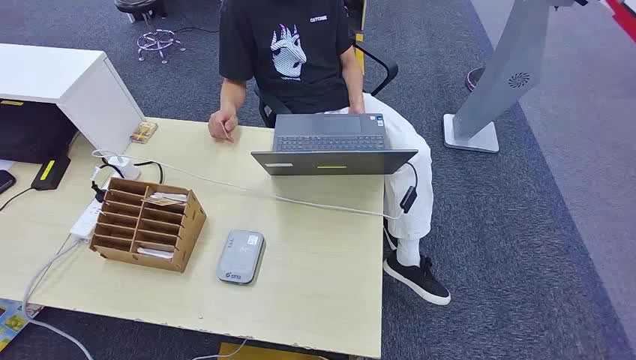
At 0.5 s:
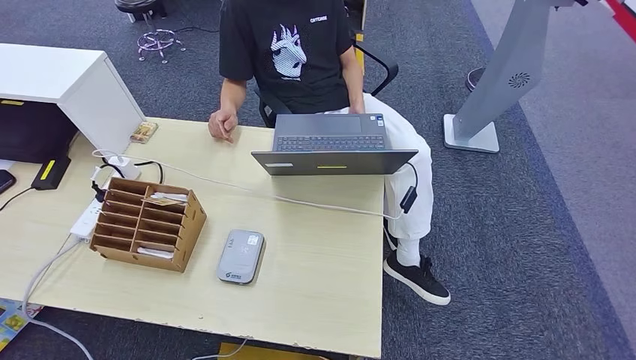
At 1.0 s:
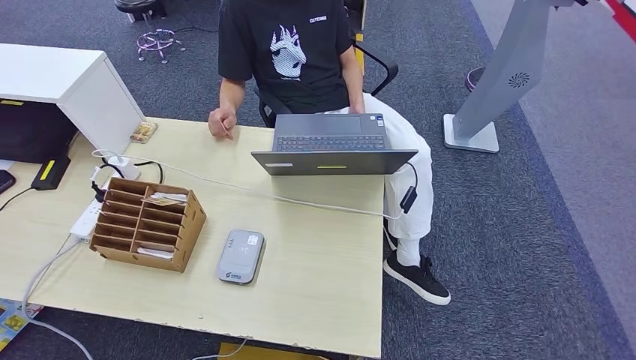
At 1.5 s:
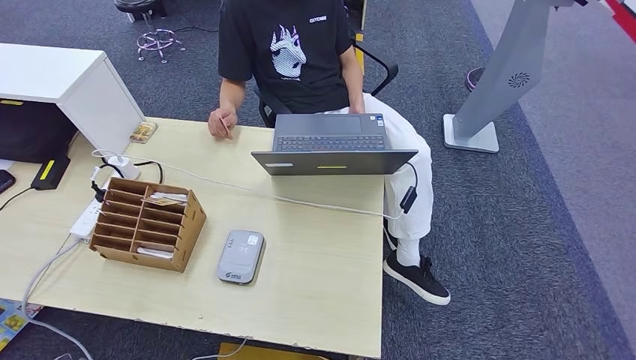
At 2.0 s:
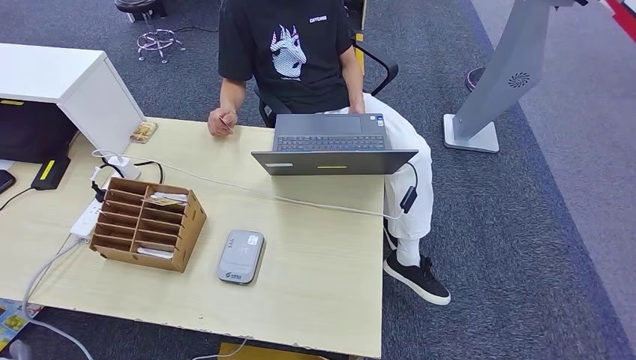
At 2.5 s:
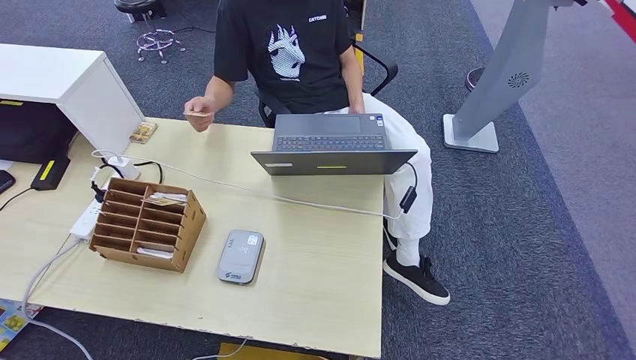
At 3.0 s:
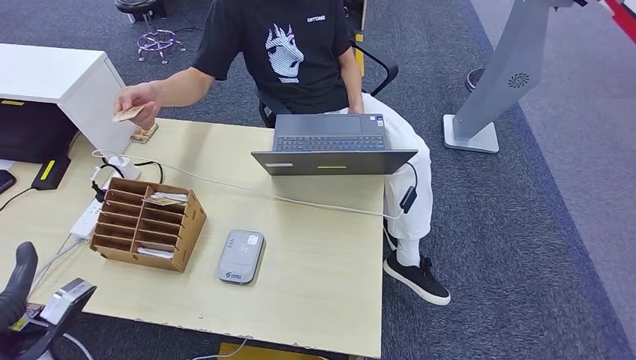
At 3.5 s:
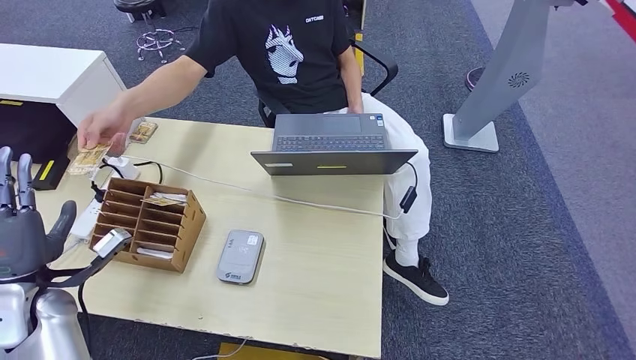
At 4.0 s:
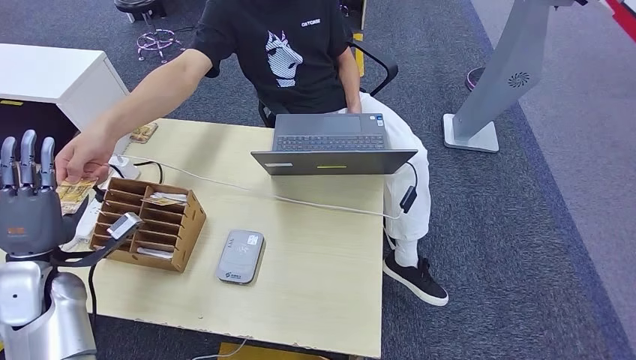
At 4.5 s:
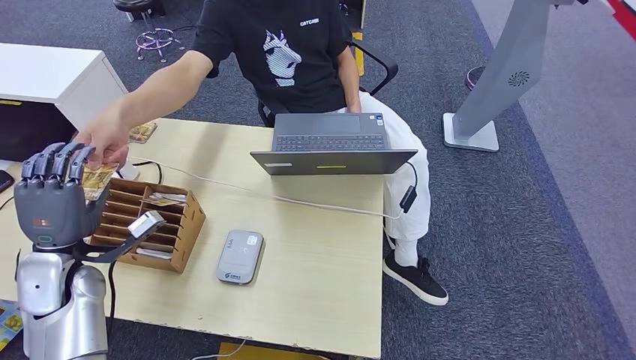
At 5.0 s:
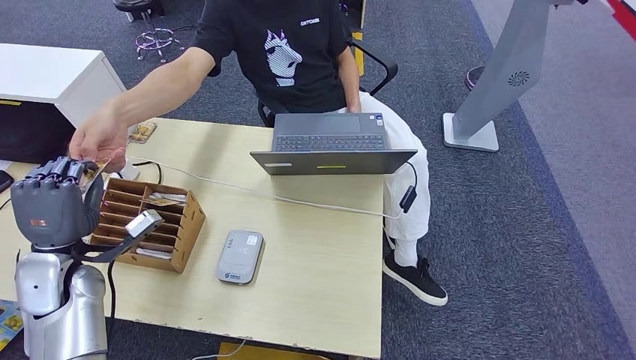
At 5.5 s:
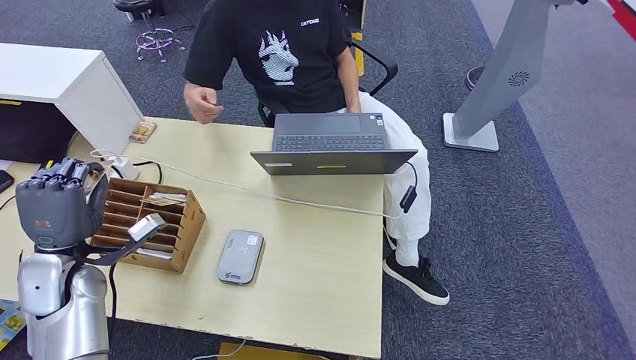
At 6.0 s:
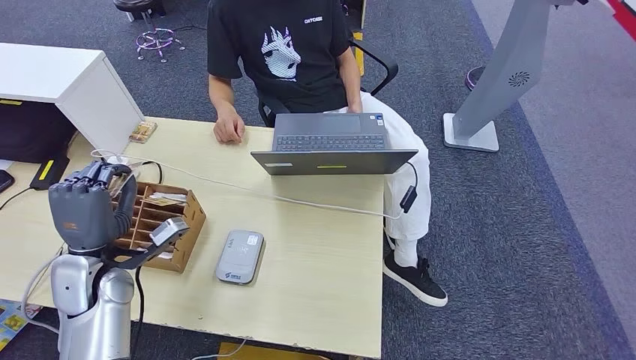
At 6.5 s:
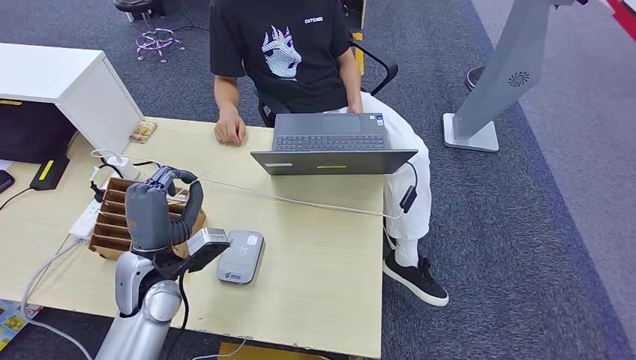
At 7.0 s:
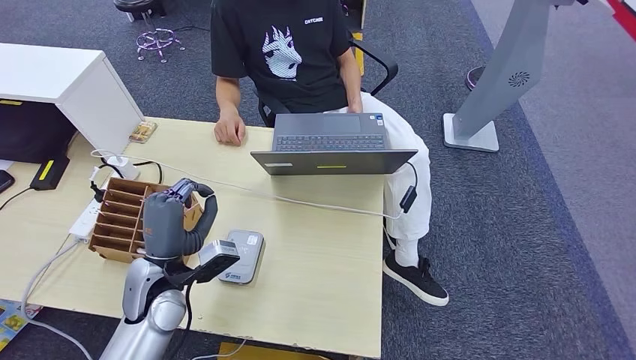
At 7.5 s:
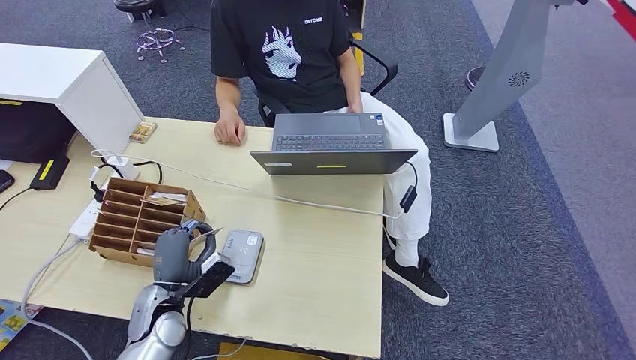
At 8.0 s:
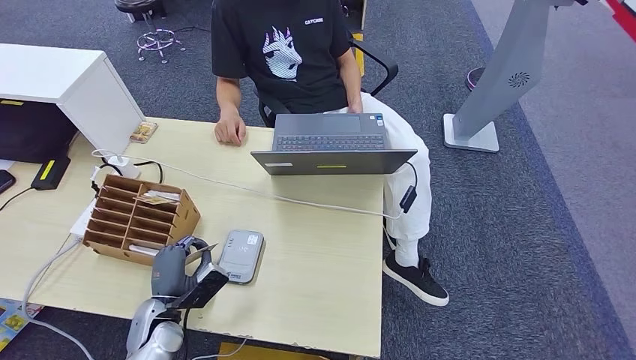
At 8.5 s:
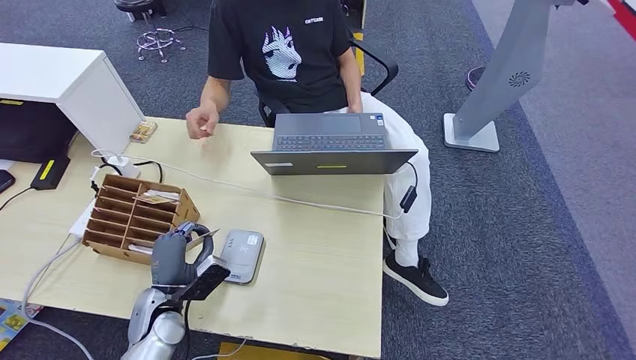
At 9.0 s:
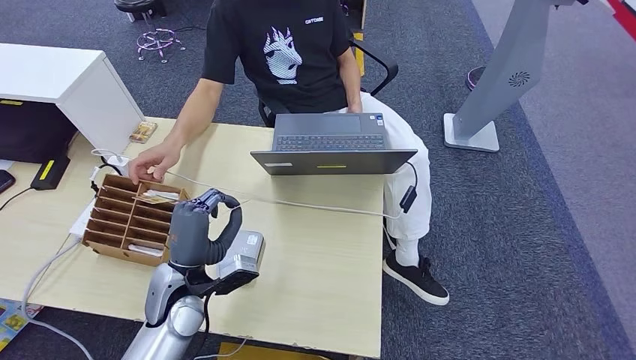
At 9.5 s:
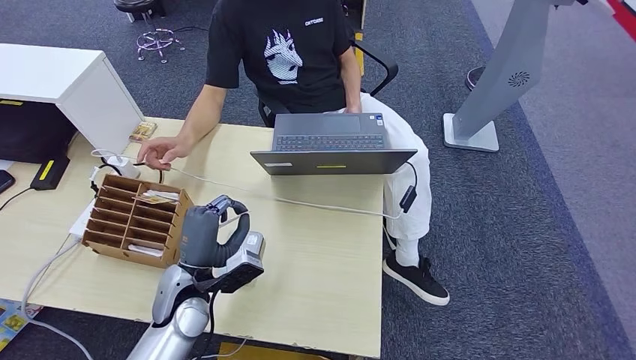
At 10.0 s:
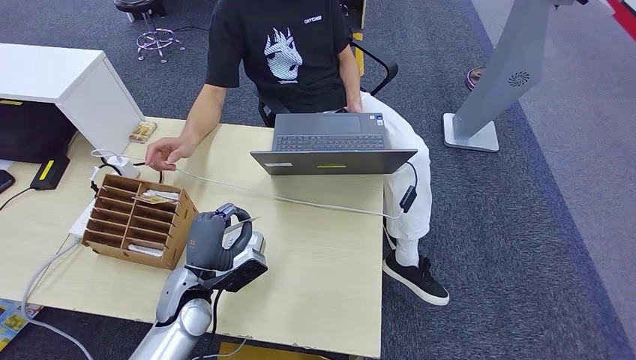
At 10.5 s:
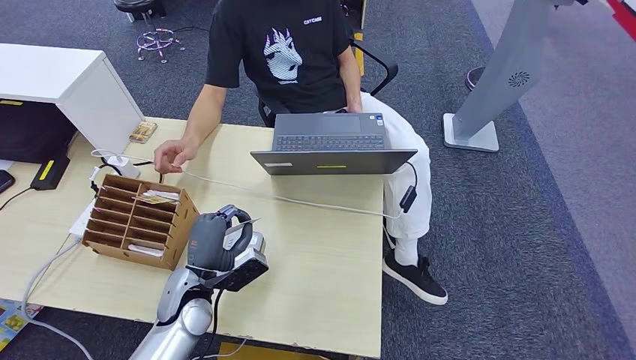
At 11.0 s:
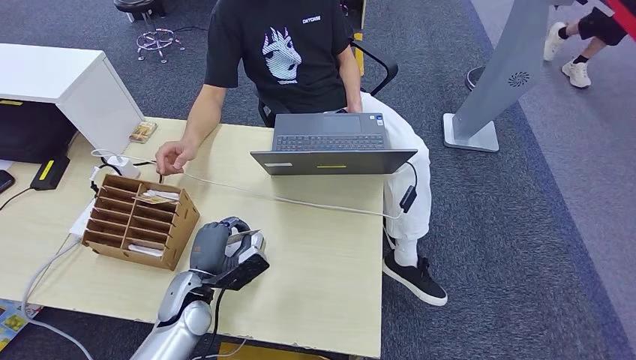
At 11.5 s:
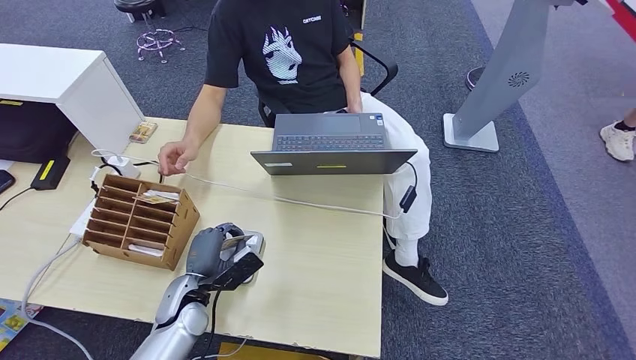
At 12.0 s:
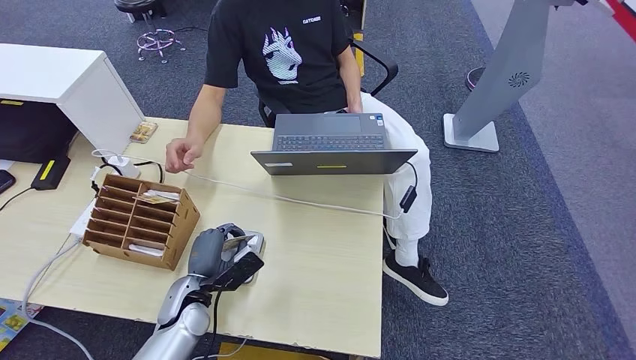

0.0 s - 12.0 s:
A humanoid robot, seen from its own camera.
Step, 0.0 s - 4.5 s: Take the ID card from the person's hand.
Step, 5.5 s - 9.0 s: Place the ID card on the card reader.
2.0 s - 4.0 s: The left hand heads forward and upward, covering roughly 25 cm.
4.0 s - 6.0 s: The left hand moves to the right, roughly 10 cm.
6.0 s - 8.0 s: The left hand moves downward, some 15 cm.
8.0 s - 10.0 s: The left hand shifts about 10 cm to the right and upward.
10.0 s - 12.0 s: The left hand shifts by some 5 cm.

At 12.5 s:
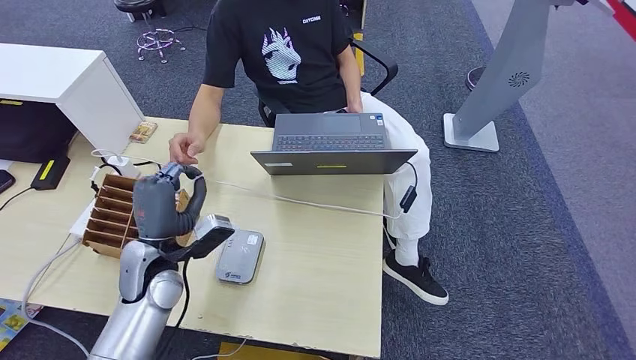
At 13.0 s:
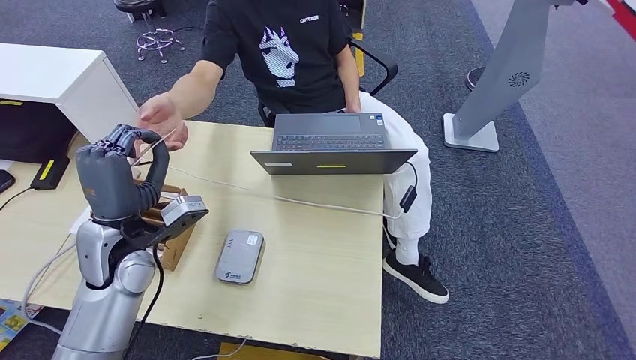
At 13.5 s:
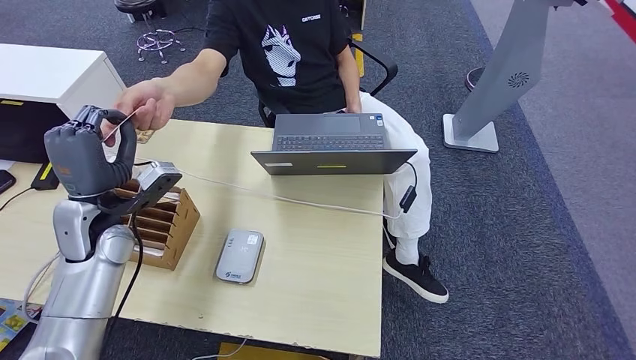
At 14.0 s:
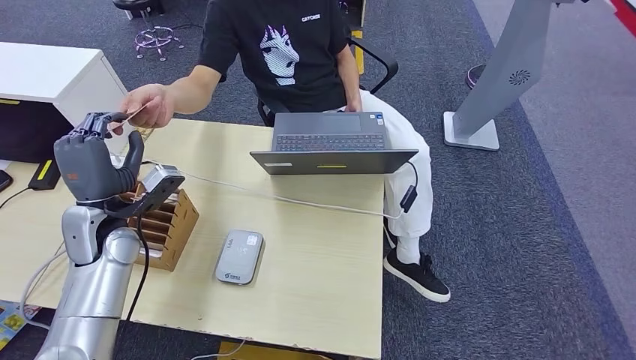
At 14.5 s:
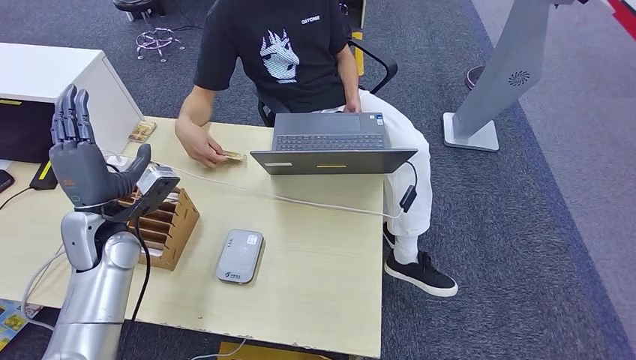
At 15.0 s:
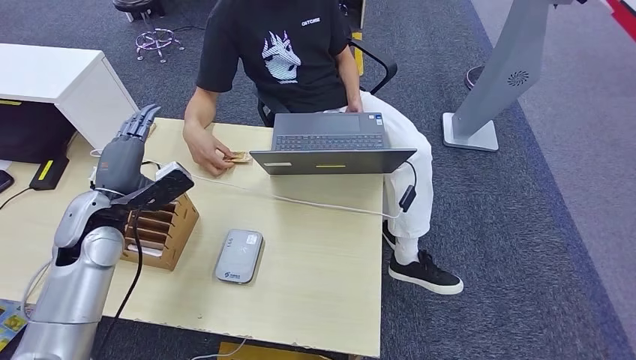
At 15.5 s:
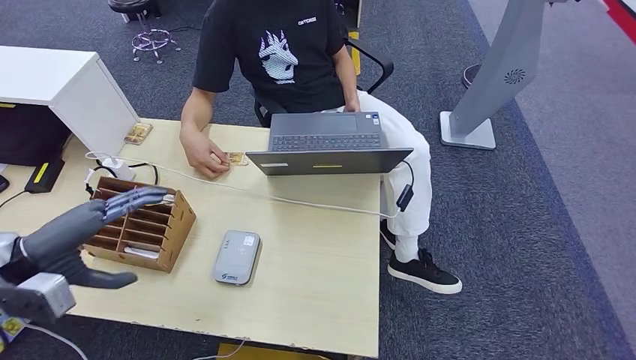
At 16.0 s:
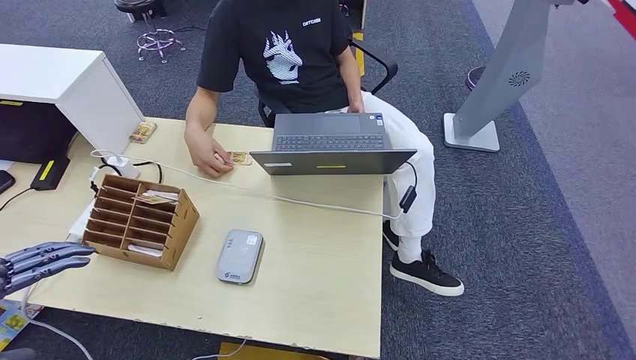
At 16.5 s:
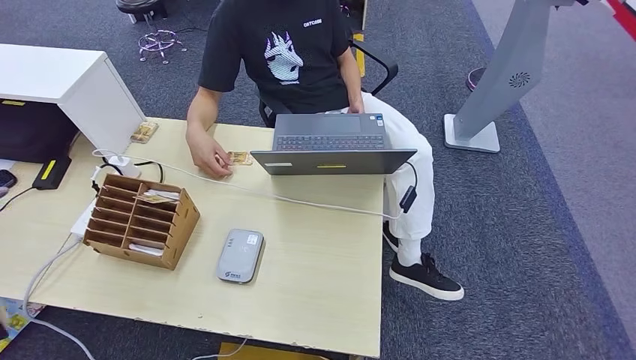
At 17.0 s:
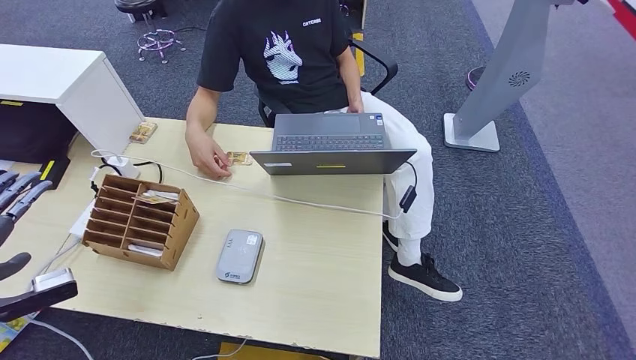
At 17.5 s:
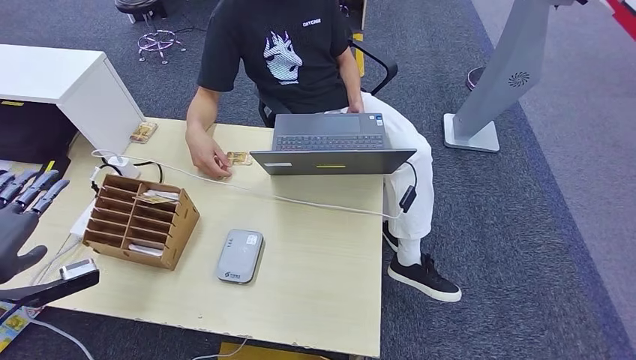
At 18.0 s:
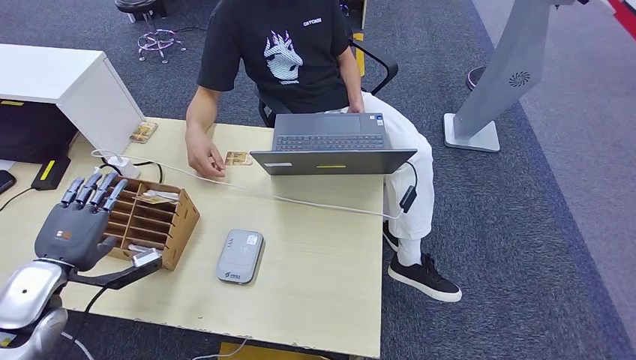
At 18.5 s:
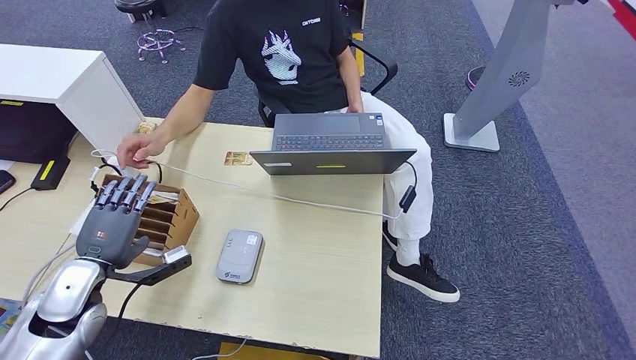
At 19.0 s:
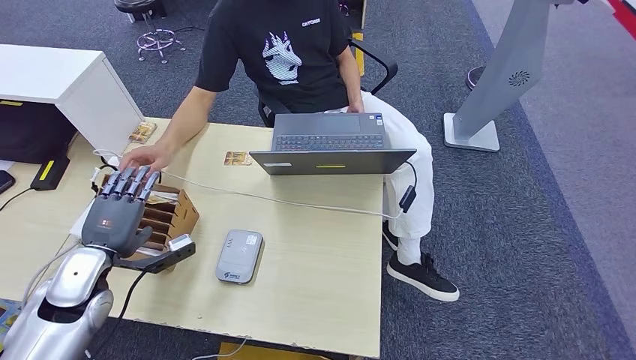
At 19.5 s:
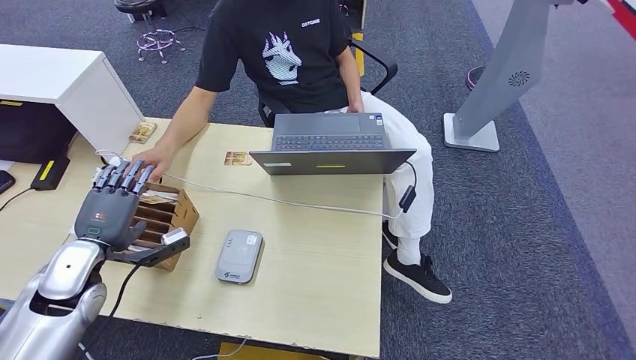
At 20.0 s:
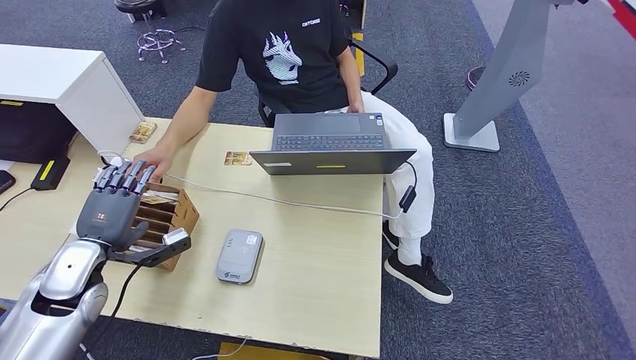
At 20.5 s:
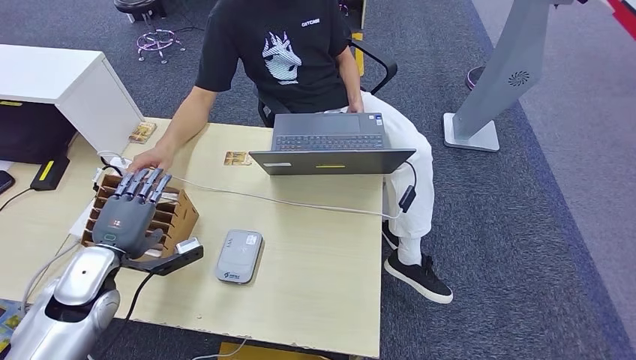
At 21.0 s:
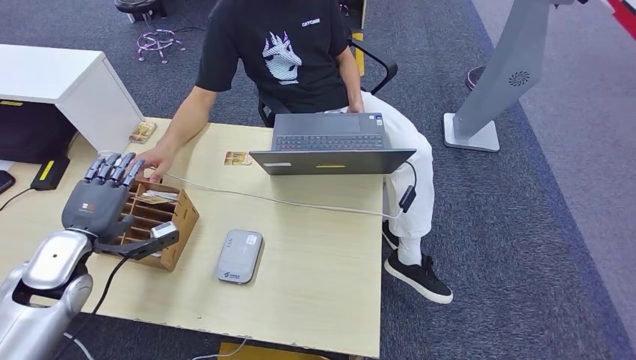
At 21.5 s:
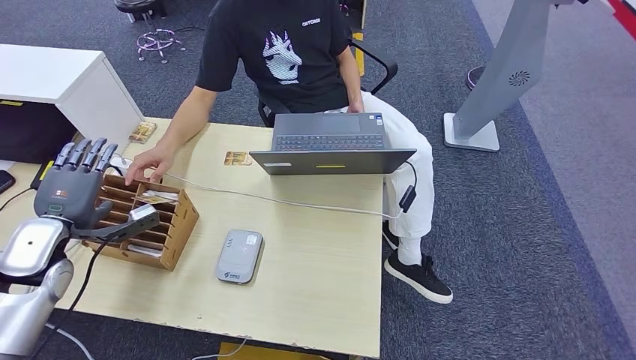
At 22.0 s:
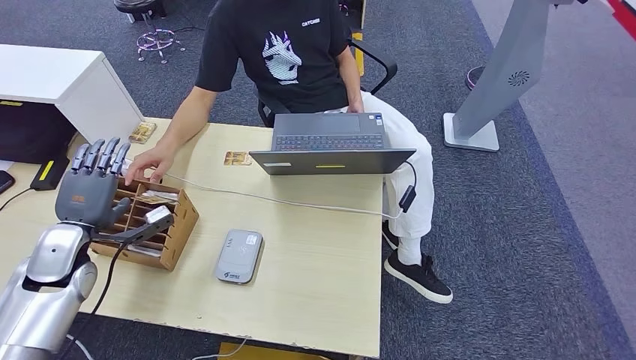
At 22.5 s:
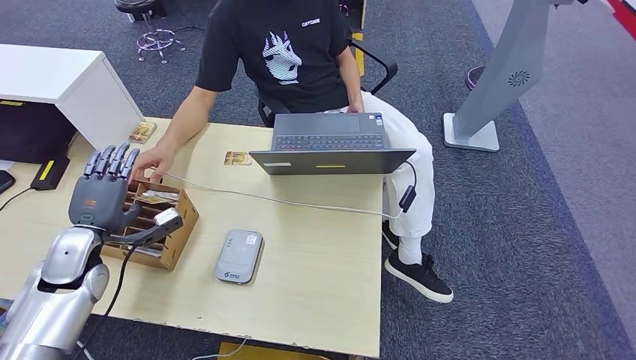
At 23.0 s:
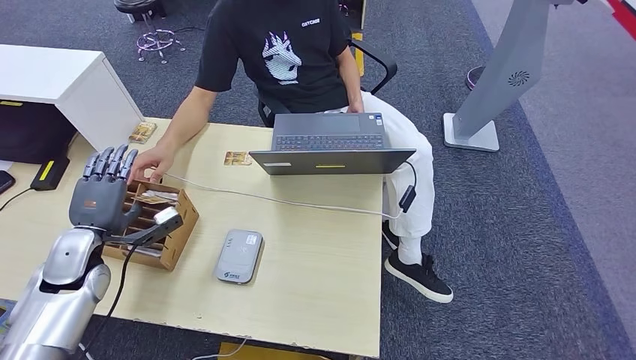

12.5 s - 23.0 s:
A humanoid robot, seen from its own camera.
Step, 12.5 s - 14.5 s: Hand the ID card to the person.
12.5 s - 14.5 s: The left hand shifts about 10 cm to the left and upward.
14.5 s - 16.5 s: The left hand heads backward, upward and to the left, covering roughly 30 cm.
16.5 s - 19.0 s: The left hand goes approximately 30 cm downward, forward and to the right.
19.0 s - 21.0 s: There are only small adjustments of the hands.
21.0 s - 23.0 s: There are only small adjustments of the hands.
